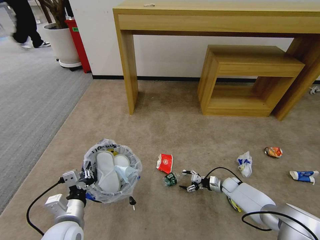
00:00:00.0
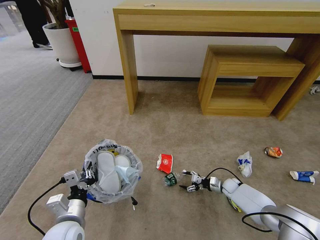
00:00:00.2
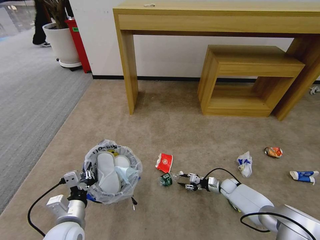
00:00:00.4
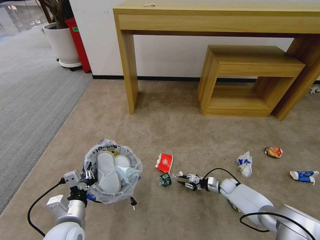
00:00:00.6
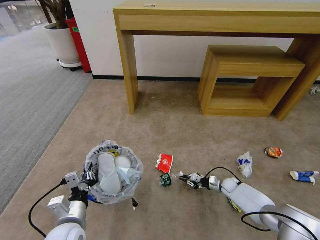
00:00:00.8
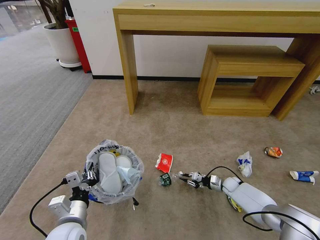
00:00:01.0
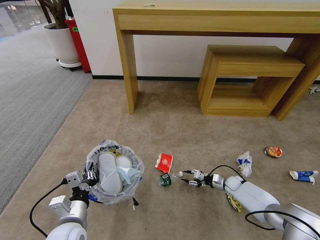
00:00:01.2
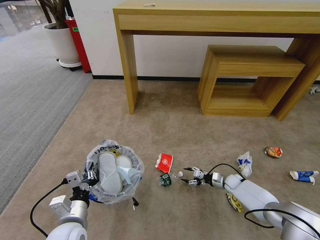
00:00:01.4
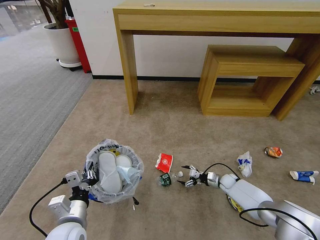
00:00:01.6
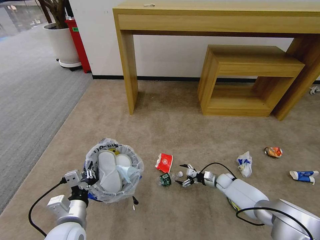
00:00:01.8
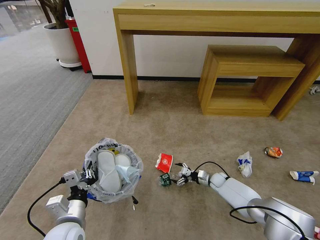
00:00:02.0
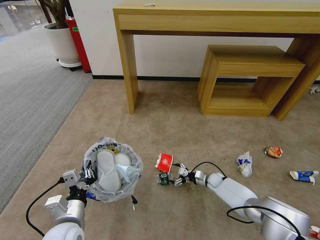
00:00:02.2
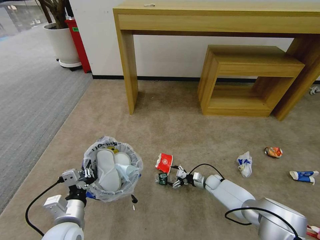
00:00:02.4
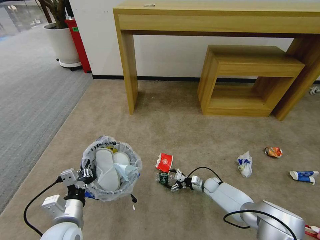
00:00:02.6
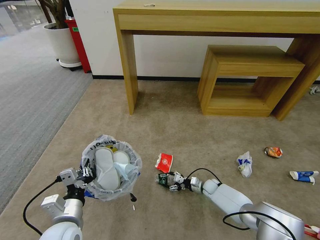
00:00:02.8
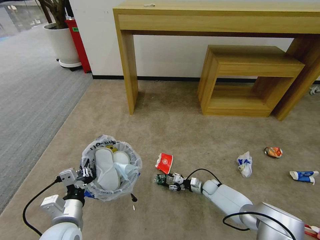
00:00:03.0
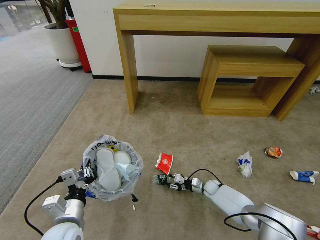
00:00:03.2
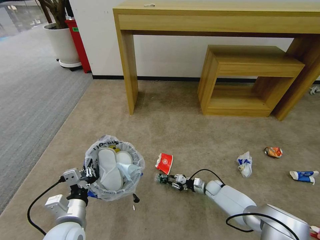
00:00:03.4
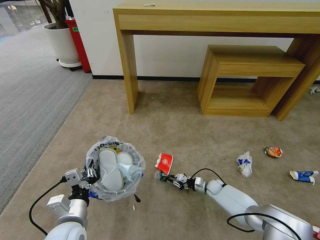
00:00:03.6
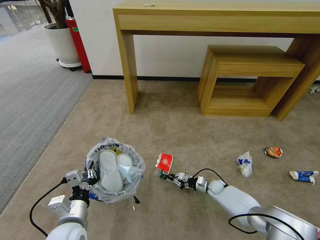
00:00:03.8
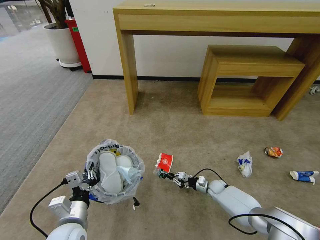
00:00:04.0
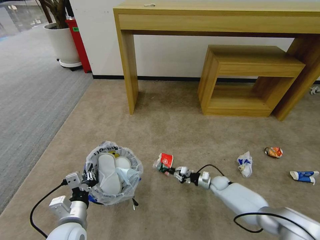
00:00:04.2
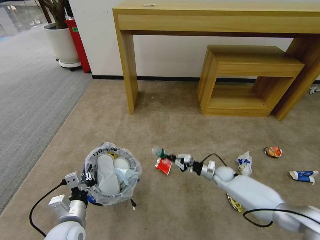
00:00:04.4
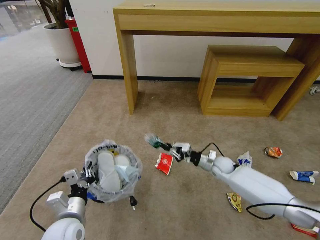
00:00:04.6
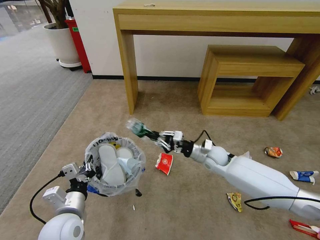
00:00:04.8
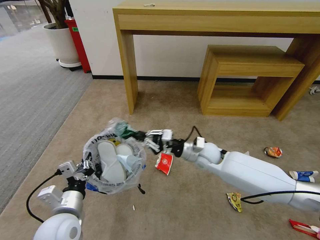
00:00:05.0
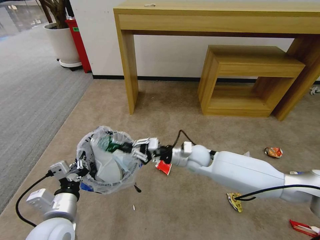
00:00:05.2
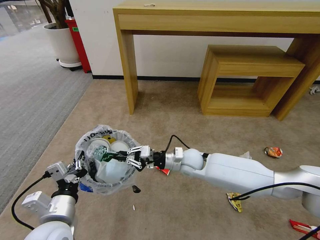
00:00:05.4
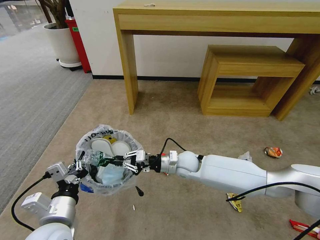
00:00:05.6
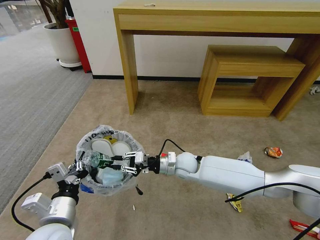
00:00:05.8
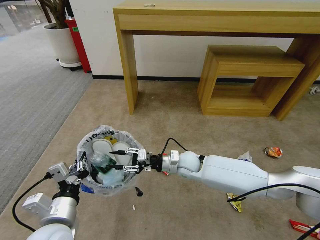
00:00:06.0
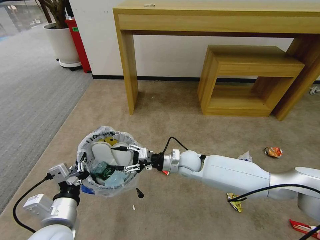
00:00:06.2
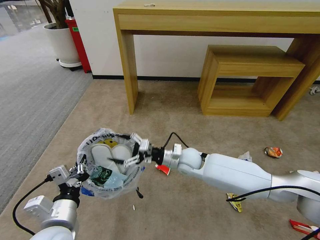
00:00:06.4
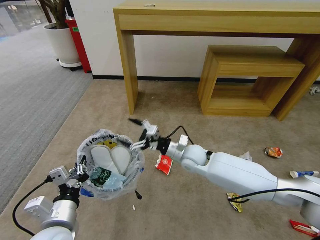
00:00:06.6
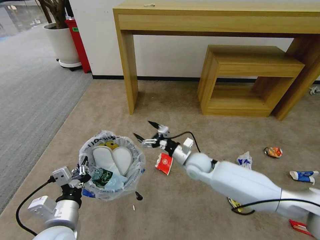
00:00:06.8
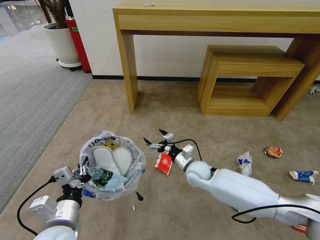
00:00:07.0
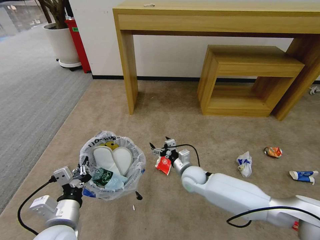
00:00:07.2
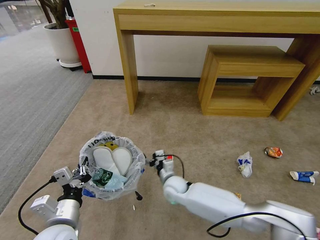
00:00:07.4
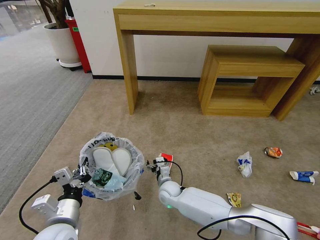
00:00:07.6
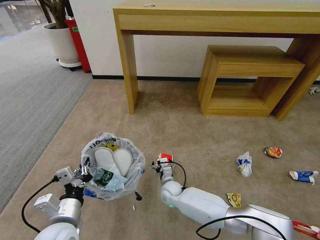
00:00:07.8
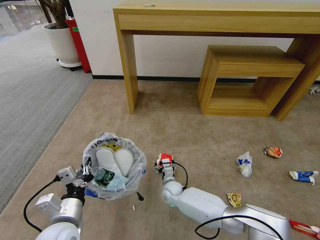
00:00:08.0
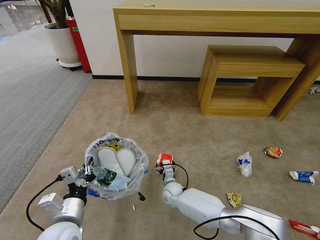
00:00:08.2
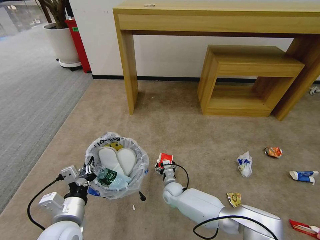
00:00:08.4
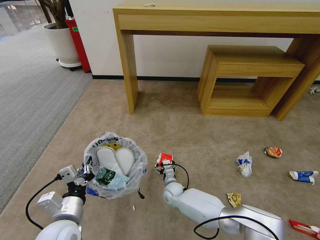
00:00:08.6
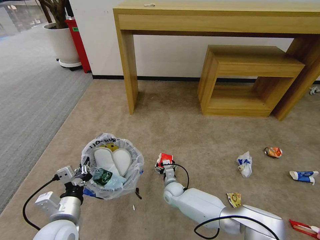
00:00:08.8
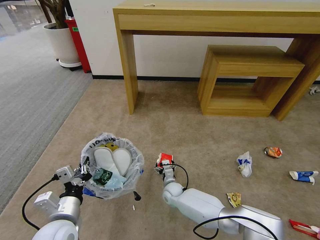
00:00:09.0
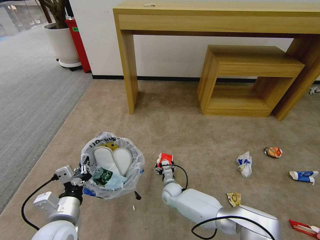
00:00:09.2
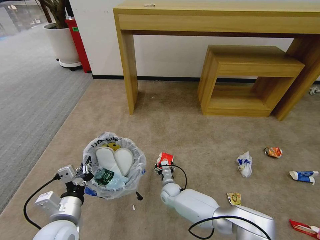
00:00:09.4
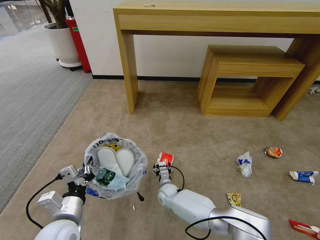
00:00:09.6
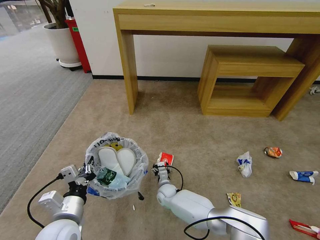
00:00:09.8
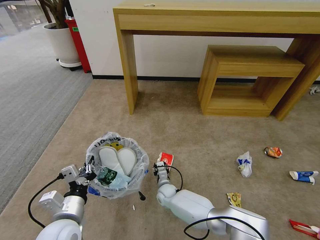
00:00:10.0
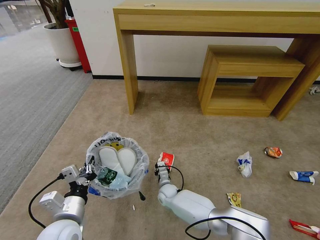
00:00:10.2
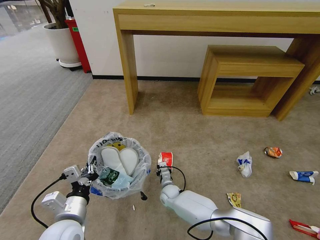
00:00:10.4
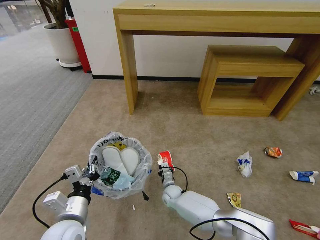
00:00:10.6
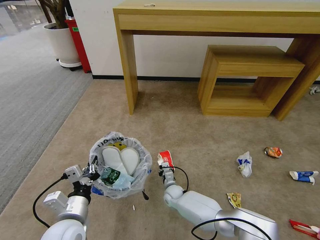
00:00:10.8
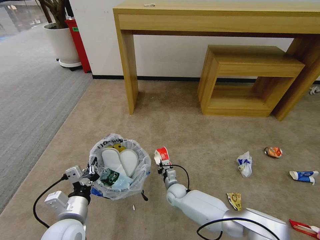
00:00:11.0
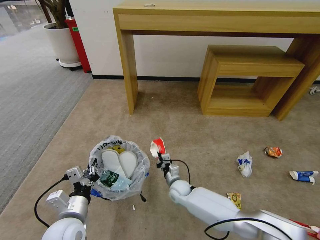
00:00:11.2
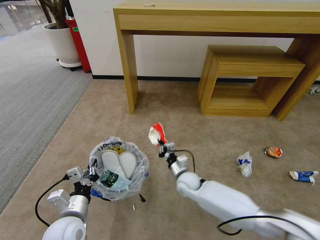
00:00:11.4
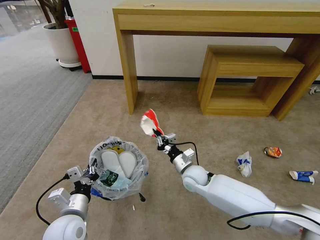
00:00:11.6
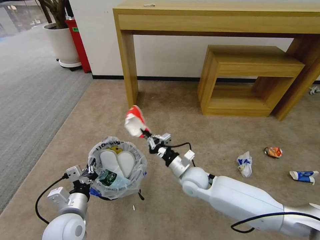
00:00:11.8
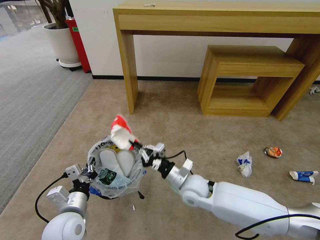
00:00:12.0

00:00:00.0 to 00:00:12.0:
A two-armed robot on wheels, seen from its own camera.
Task of the whole recording: Pick up the trash bin and place the garbage on the floor into it.
00:00:00.0 to 00:00:01.6: The right gripper closes, then reopens.
00:00:01.6 to 00:00:03.0: The right gripper is displaced to the left by approximately 10 cm.
00:00:03.0 to 00:00:04.4: The right gripper changes place by some 5 cm, and closes up.
00:00:04.4 to 00:00:06.0: The left gripper heads upward, covering approximately 10 cm, while the right gripper is displaced upward and to the left by roughly 30 cm, and opens its fingers.
00:00:06.0 to 00:00:07.6: The right gripper moves downward and to the left, about 15 cm, and opens.
00:00:07.6 to 00:00:09.0: The right gripper travels downward by some 5 cm.
00:00:09.0 to 00:00:10.4: The right gripper closes up.
00:00:10.4 to 00:00:12.0: The right gripper is displaced upward by about 20 cm.

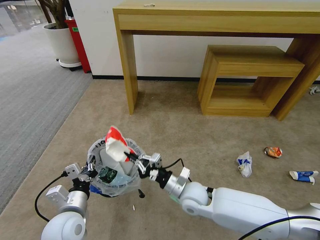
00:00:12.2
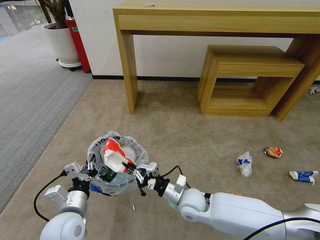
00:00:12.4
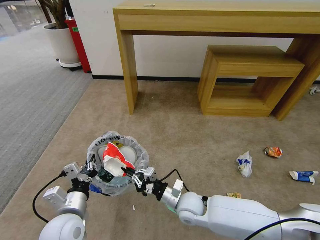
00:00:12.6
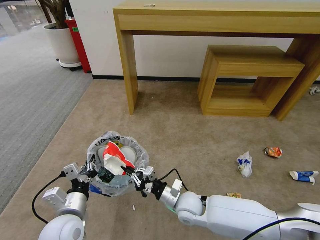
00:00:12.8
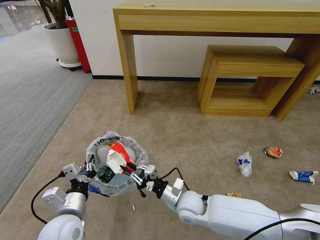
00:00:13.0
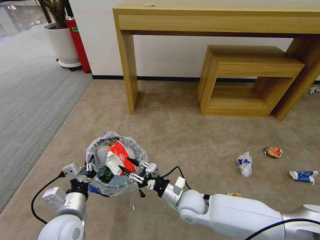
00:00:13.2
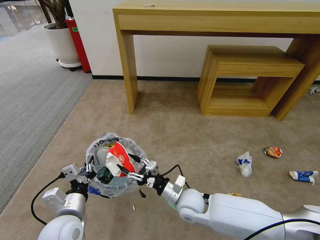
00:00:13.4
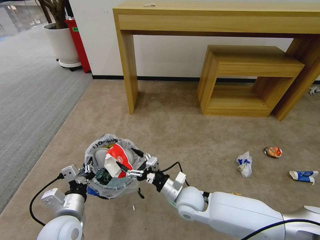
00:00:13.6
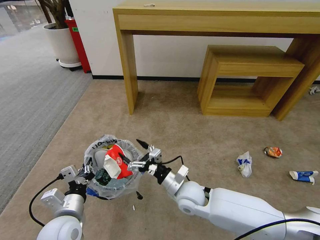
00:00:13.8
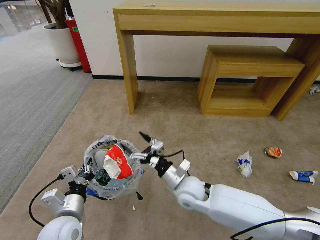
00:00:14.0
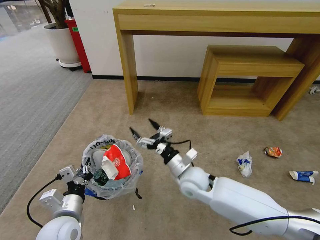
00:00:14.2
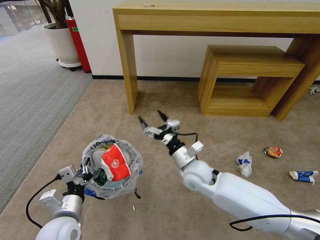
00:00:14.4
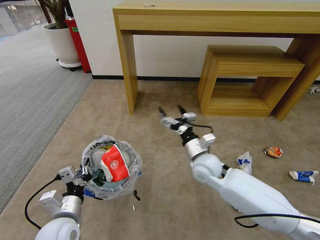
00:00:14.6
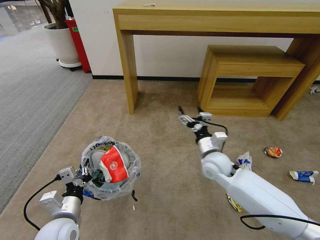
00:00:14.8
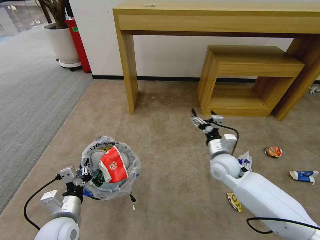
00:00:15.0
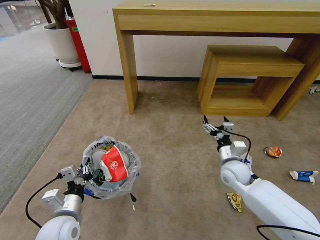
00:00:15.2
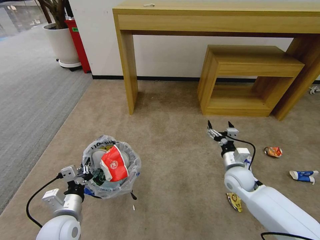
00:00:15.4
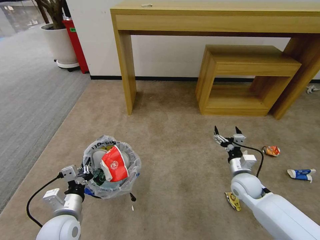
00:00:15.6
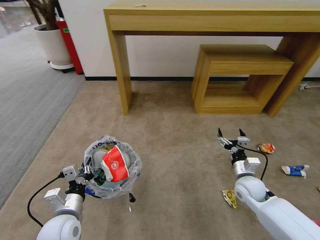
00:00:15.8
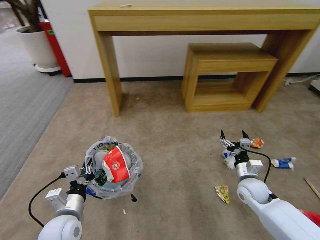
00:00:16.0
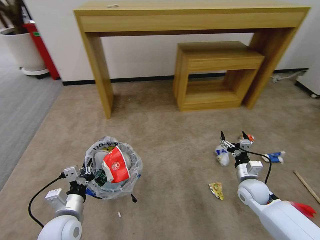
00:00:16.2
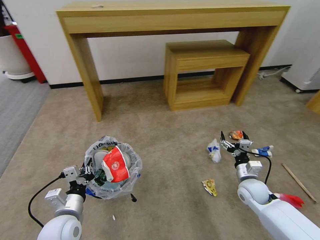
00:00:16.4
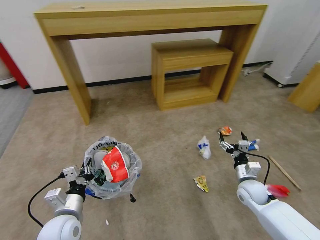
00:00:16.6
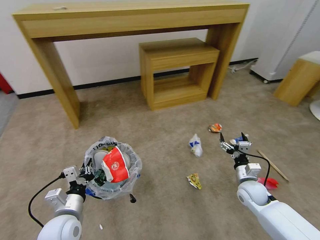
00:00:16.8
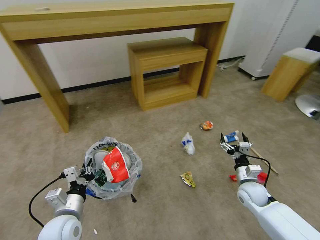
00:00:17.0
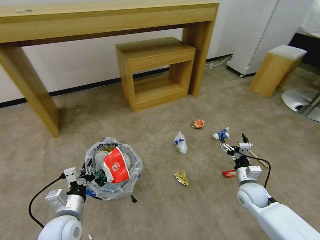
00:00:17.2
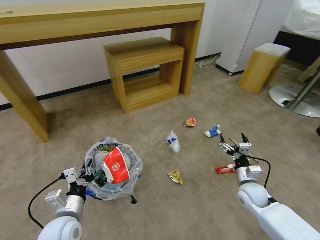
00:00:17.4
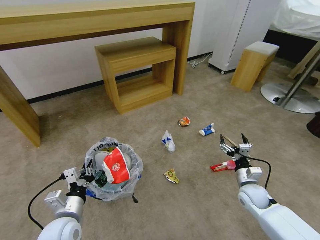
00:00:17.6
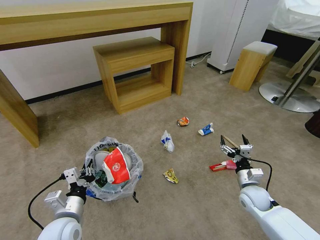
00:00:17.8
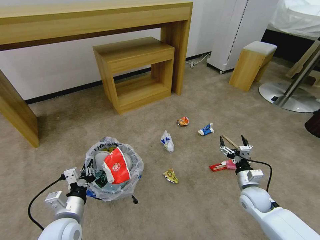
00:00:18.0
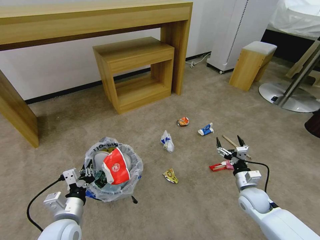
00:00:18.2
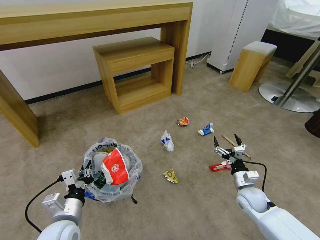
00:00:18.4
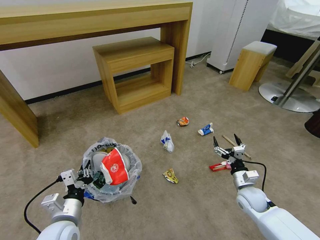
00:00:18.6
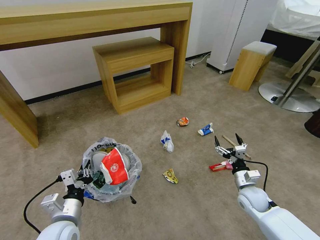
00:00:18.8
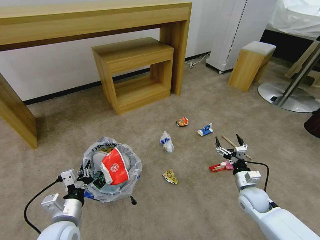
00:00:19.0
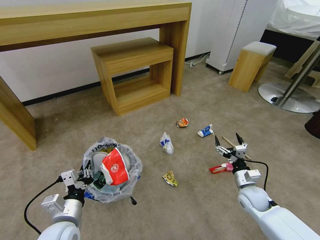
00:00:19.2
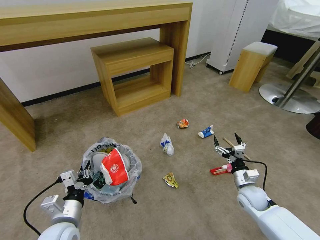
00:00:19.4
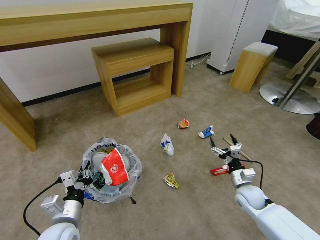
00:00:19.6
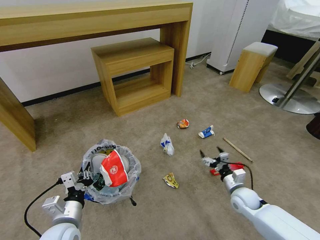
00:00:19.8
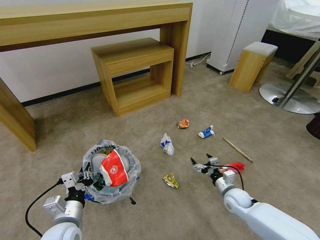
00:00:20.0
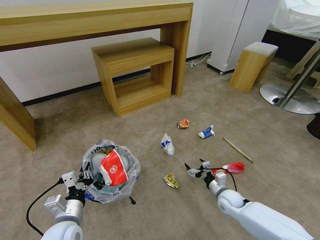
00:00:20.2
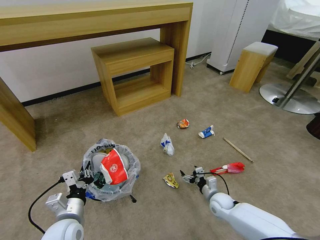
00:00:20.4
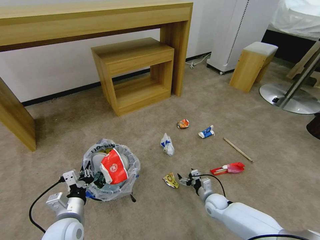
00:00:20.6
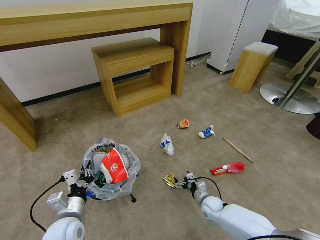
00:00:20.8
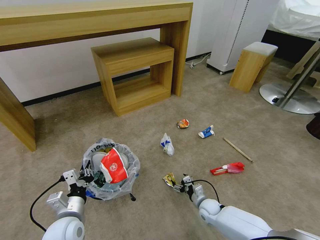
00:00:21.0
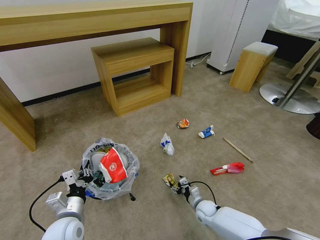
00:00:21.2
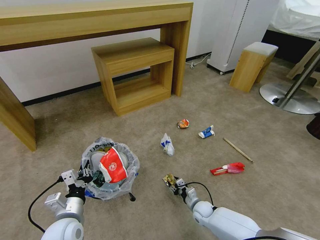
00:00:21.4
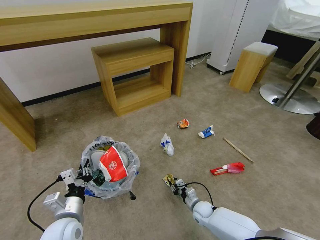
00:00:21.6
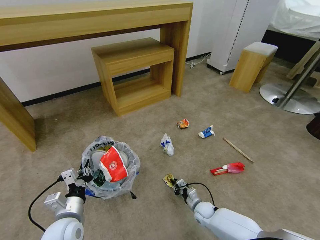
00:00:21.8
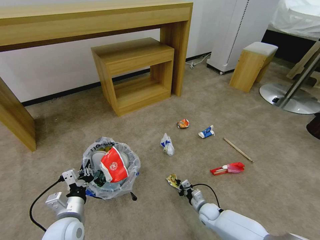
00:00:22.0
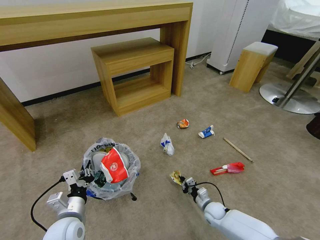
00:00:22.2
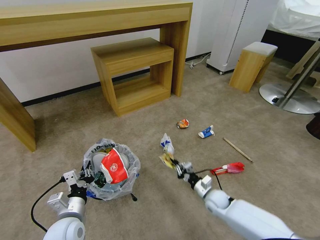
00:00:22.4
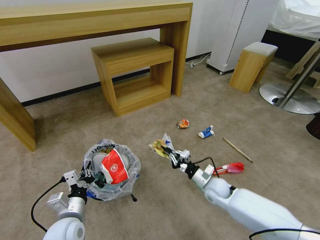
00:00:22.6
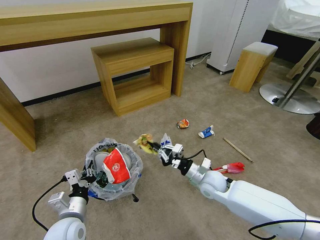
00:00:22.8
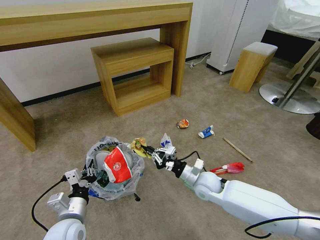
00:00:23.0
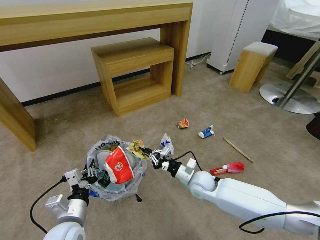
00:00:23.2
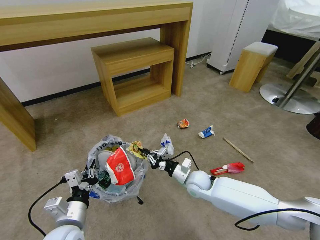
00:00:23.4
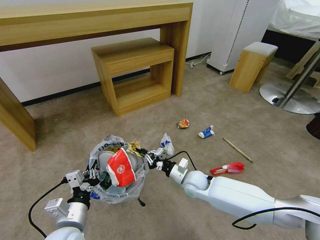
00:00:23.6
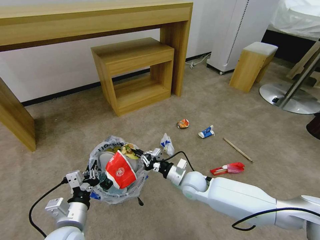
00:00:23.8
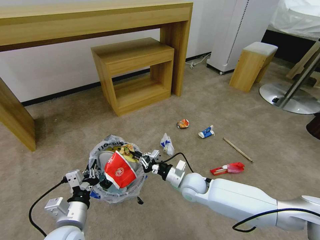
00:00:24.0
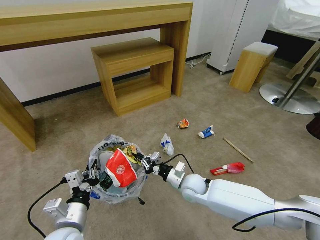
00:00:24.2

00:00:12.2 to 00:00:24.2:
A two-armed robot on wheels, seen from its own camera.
Task of the whole recording: Pick up the trash bin and place the garbage on the floor into it.
00:00:12.2 to 00:00:13.8: The right gripper opens its fingers.
00:00:13.8 to 00:00:15.2: The right gripper heads to the right and forward, covering roughly 20 cm.
00:00:15.2 to 00:00:16.6: The right gripper goes roughly 10 cm to the right and downward.
00:00:18.2 to 00:00:19.8: There are only small adjustments of the grippers.
00:00:19.8 to 00:00:21.2: The right gripper shifts about 20 cm downward and to the left.
00:00:21.2 to 00:00:22.6: The right gripper goes some 15 cm upward, and closes its fingers.
00:00:22.6 to 00:00:24.2: The left gripper moves roughly 5 cm, while the right gripper travels to the left by approximately 10 cm.
